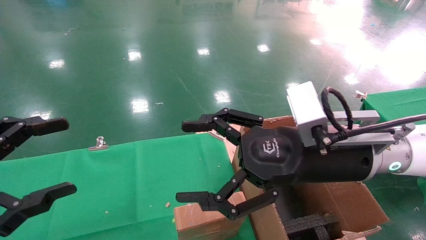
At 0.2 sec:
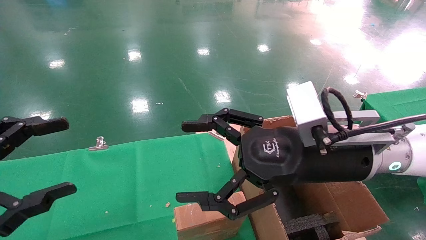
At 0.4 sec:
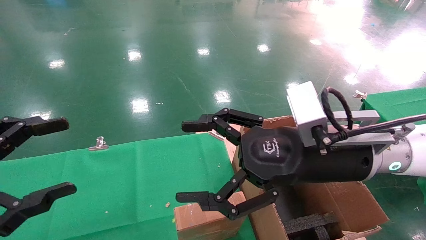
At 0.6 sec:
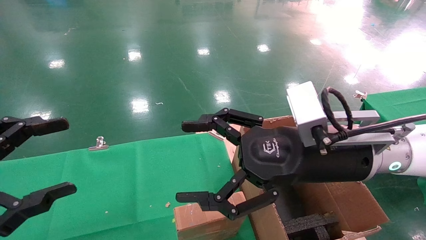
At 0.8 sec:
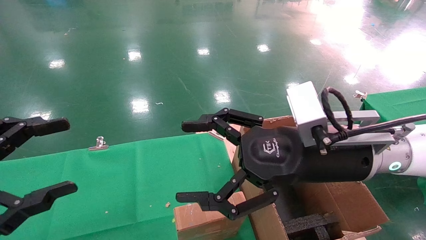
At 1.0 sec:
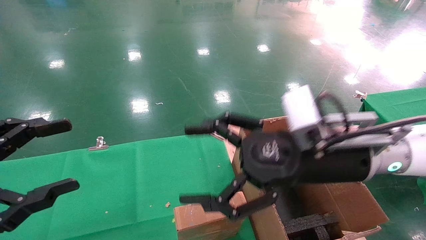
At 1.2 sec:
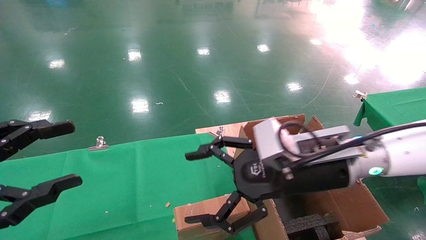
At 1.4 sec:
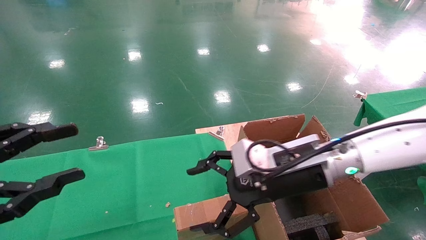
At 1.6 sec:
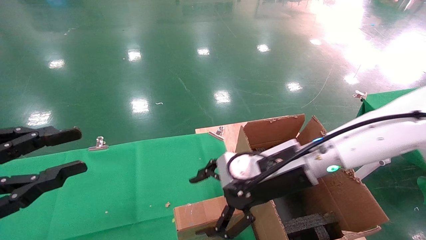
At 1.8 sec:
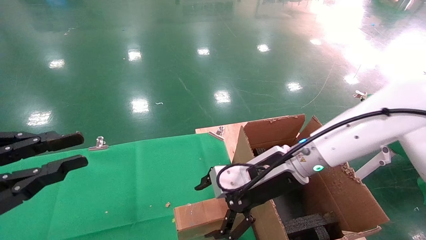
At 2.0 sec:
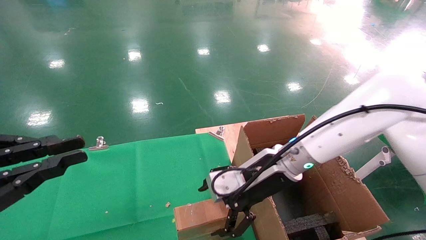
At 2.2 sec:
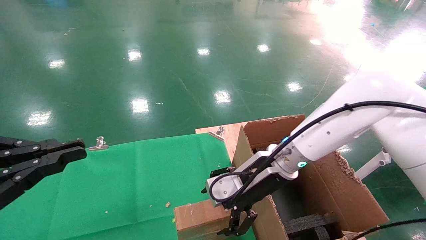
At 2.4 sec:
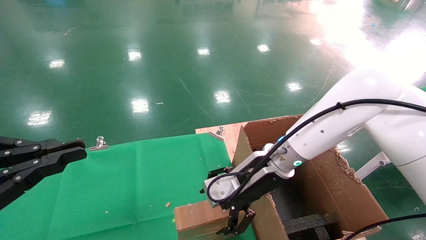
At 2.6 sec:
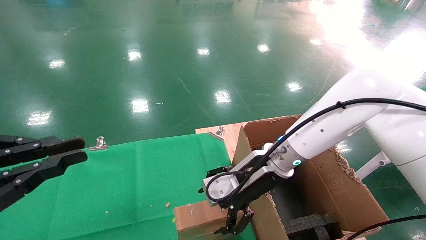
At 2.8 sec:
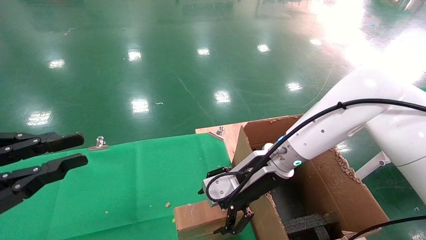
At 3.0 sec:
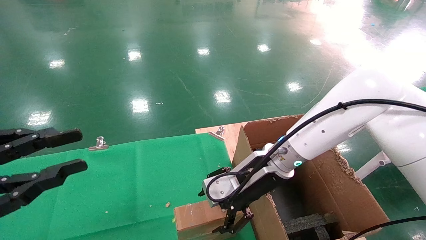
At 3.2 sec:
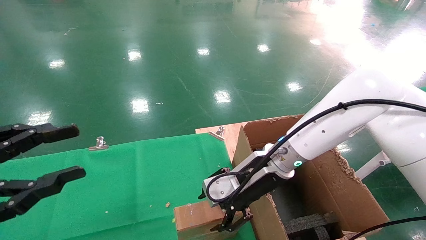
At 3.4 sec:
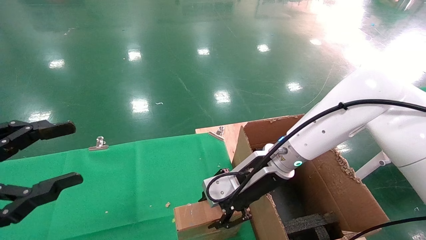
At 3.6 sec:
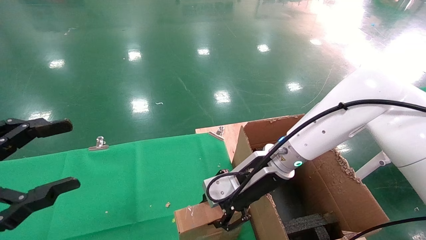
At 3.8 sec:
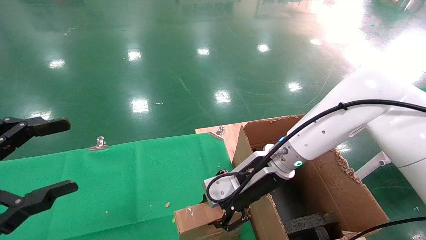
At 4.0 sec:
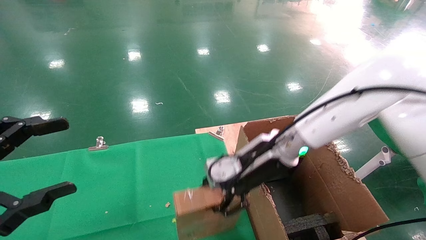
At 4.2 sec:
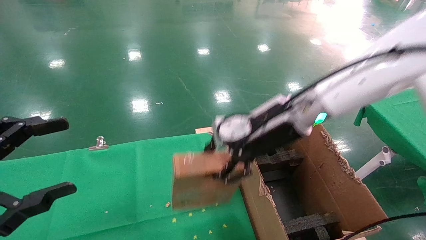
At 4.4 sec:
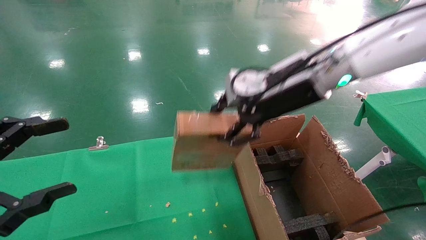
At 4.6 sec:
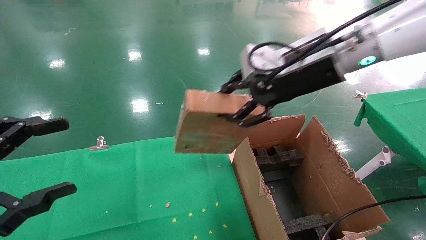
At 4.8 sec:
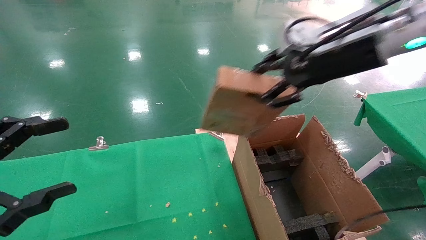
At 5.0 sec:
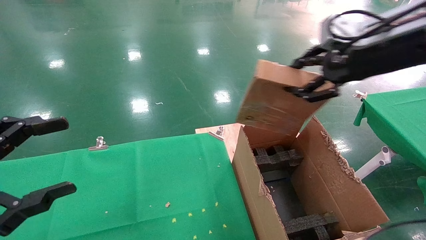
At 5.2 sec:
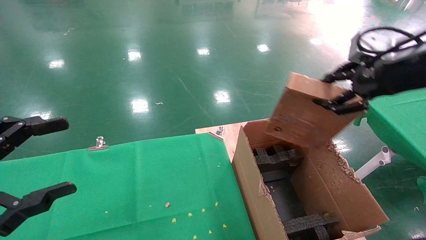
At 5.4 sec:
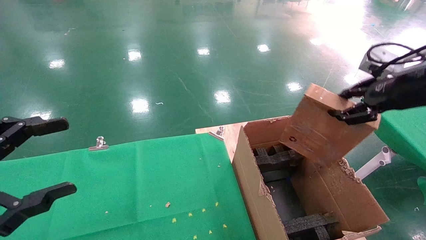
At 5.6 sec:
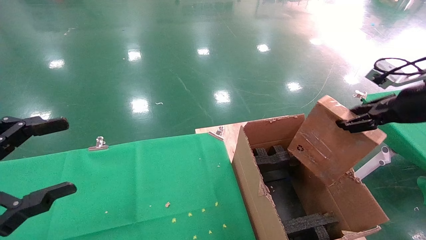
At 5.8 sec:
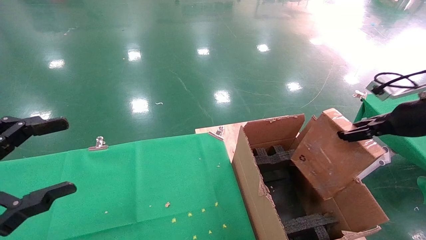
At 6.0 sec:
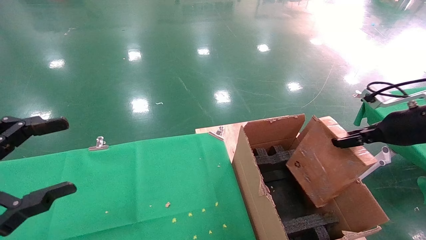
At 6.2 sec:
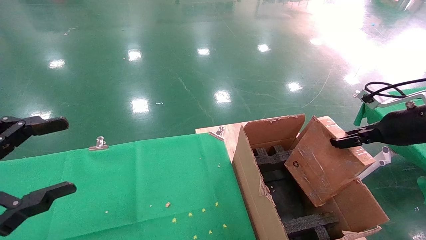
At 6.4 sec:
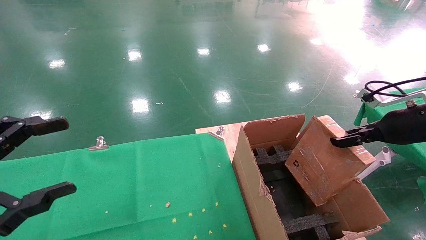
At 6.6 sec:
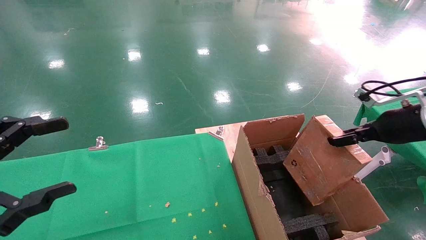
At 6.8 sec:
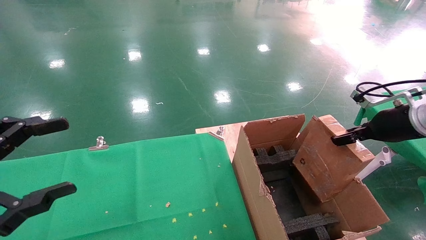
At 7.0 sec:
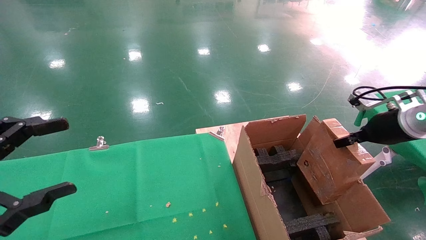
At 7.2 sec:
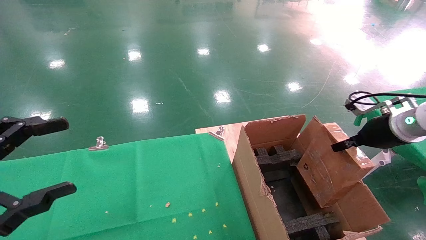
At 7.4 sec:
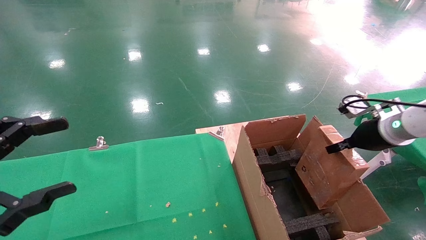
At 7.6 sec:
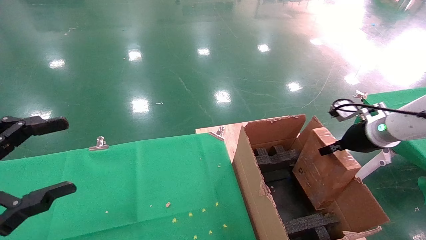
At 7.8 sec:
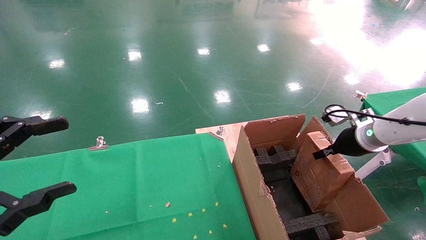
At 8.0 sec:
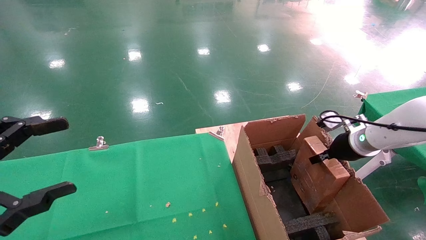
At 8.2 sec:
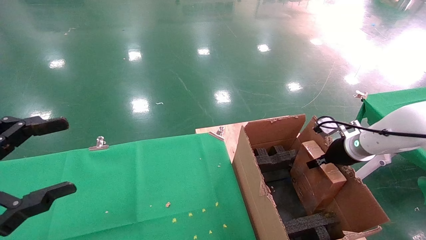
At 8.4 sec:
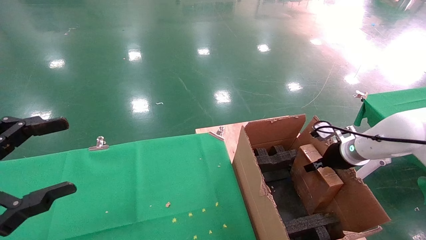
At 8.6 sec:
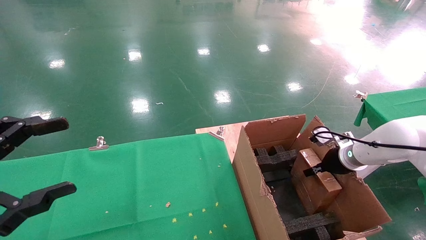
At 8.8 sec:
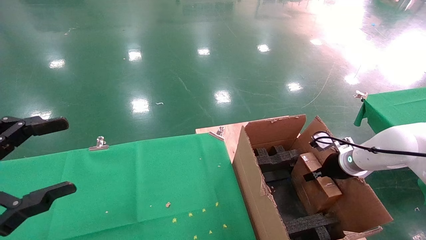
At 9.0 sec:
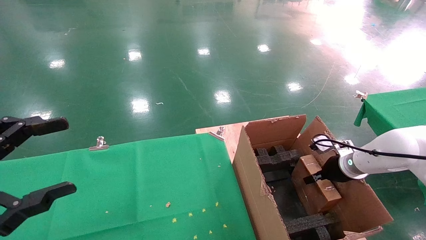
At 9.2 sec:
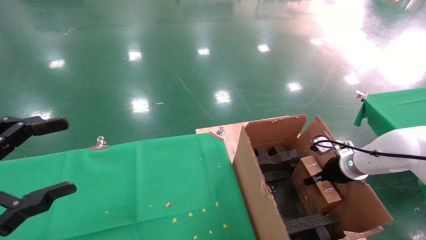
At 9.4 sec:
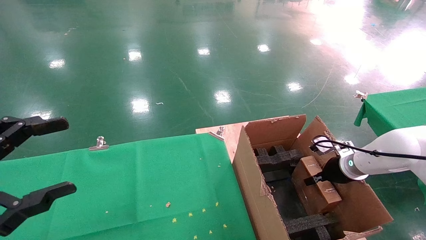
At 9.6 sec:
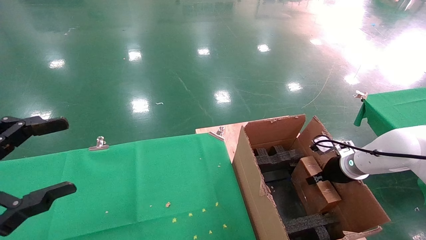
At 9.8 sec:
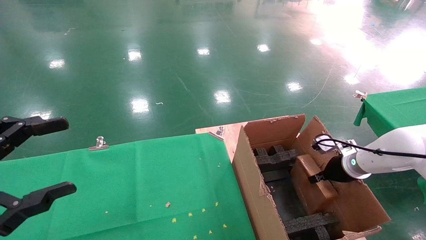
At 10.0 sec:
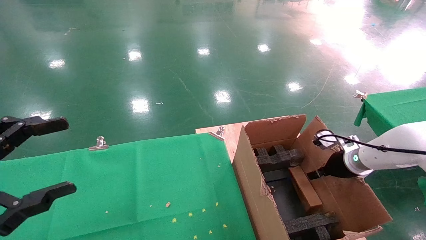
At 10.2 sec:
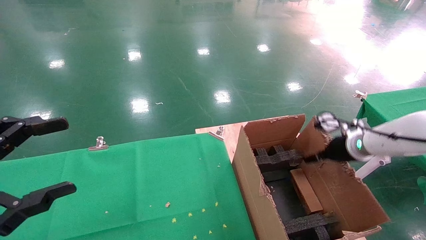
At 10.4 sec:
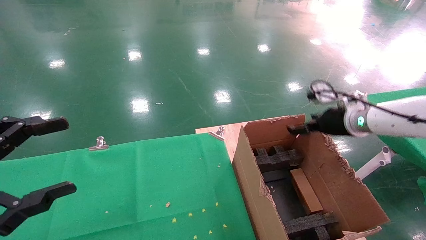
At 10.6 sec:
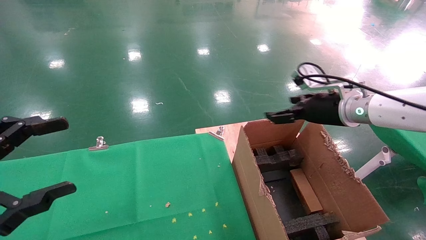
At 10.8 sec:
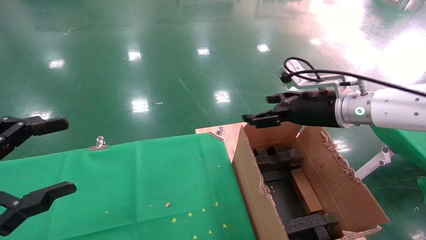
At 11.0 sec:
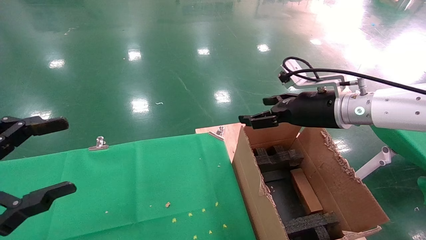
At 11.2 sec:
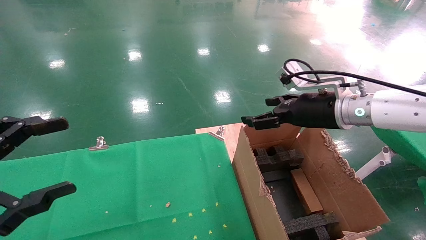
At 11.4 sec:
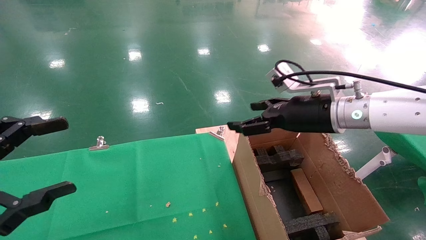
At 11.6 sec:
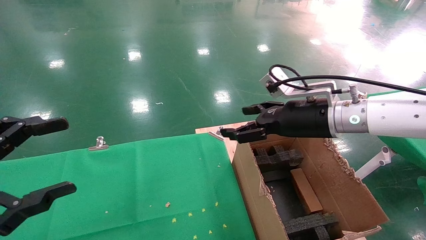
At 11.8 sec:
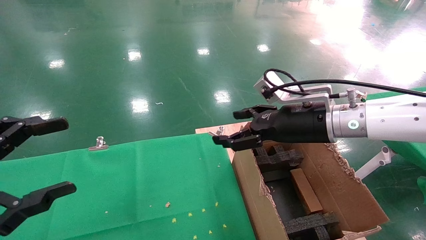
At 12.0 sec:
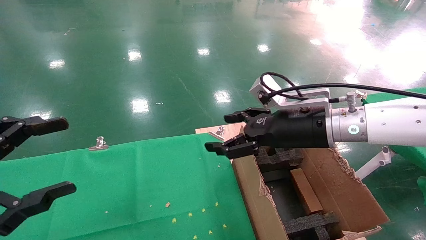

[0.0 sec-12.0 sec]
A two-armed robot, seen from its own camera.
Task of the whole recording: using a robotic arm to pick up a cardboard box and palace it the carton.
Step, 1.2 sec to 3.6 sec: Pick up the mouse and the power cord paper box.
Step, 3.8 sec to 10.4 sec: Place the mouse and the power cord paper box into the container.
0.0 sec to 1.6 sec: The right gripper is displaced forward and downward by some 10 cm, while the left gripper closes its fingers.
1.6 sec to 3.0 sec: The right gripper heads forward, covering some 5 cm, while the left gripper closes up.
3.0 sec to 4.4 sec: The right gripper goes roughly 15 cm upward, and closes up. Meanwhile the left gripper opens.
4.4 sec to 6.0 sec: The right gripper shifts approximately 25 cm to the right.
6.0 sec to 7.6 sec: The right gripper shifts about 10 cm forward and downward.
7.6 sec to 9.0 sec: The right gripper is displaced downward by approximately 10 cm.
9.0 sec to 10.4 sec: The right gripper travels upward by roughly 15 cm, and opens its fingers.
10.4 sec to 12.0 sec: The right gripper heads to the left and backward, covering roughly 15 cm.

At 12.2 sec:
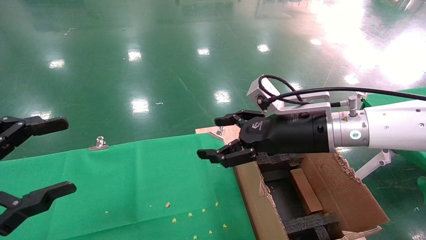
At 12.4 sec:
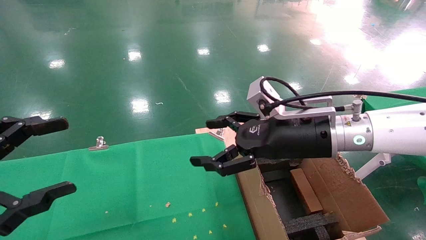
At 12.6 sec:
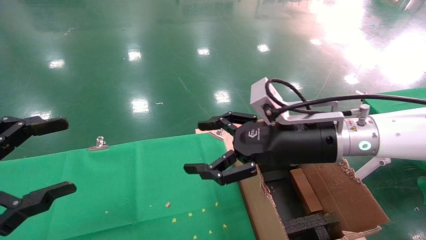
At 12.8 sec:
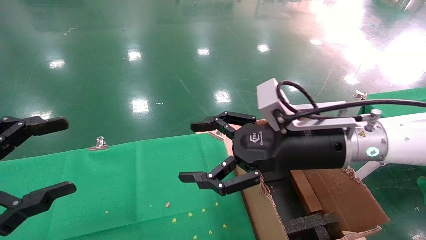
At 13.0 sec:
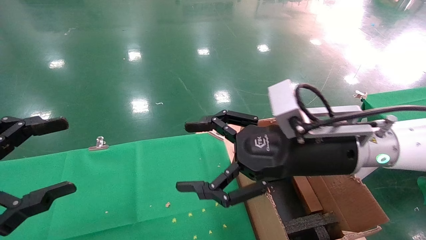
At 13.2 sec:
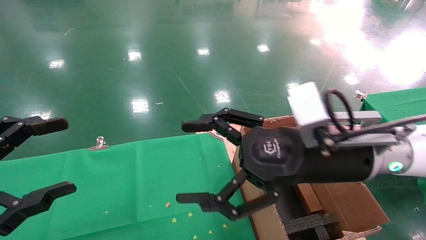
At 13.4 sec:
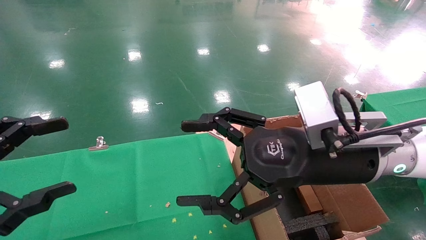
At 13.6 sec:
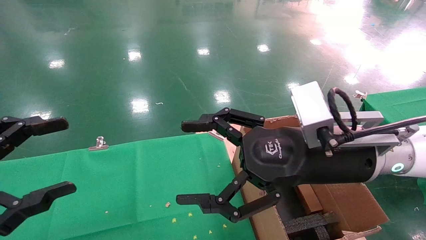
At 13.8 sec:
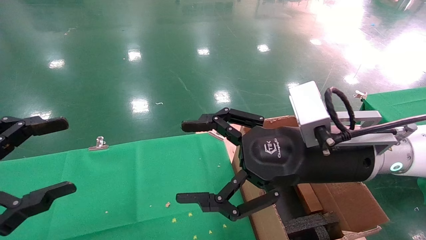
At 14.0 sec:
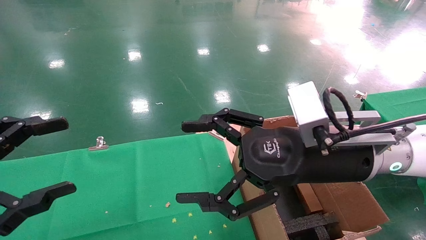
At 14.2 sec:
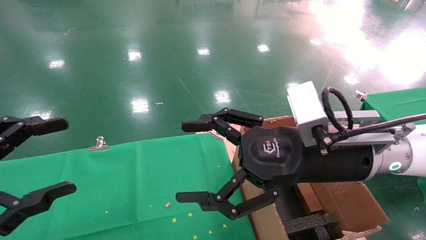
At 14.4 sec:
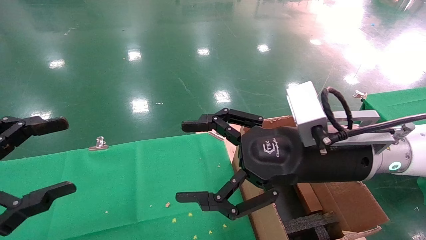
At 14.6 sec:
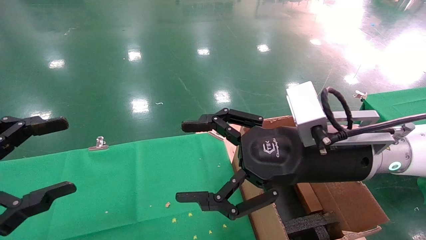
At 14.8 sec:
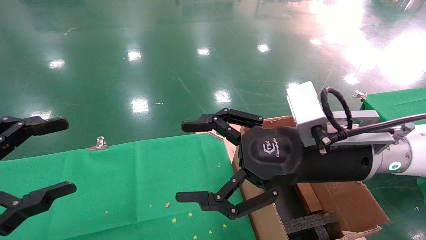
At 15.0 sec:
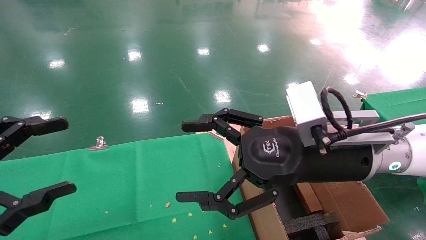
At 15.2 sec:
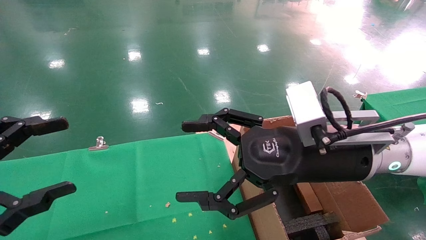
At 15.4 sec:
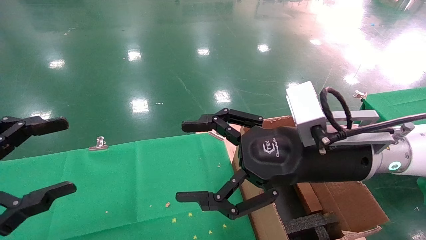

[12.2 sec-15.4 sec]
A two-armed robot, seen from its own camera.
Task of the whole recording: using a robotic arm to pick up a cardboard box and palace it the carton.
12.2 sec to 13.8 sec: The right gripper is displaced backward by approximately 5 cm.
13.8 sec to 15.4 sec: Both grippers stay about where they are.
